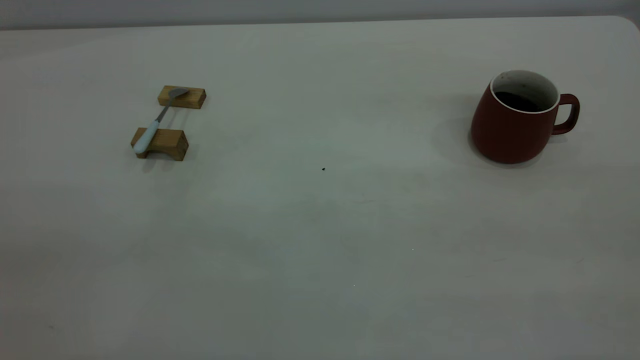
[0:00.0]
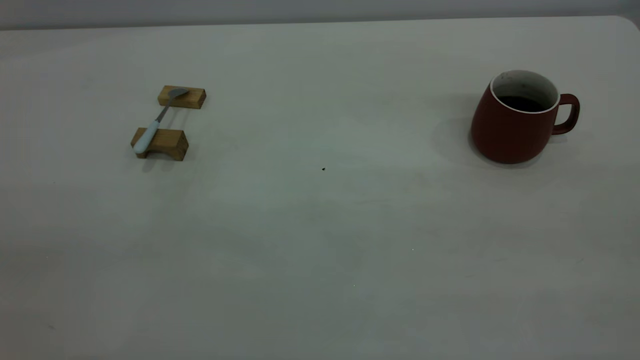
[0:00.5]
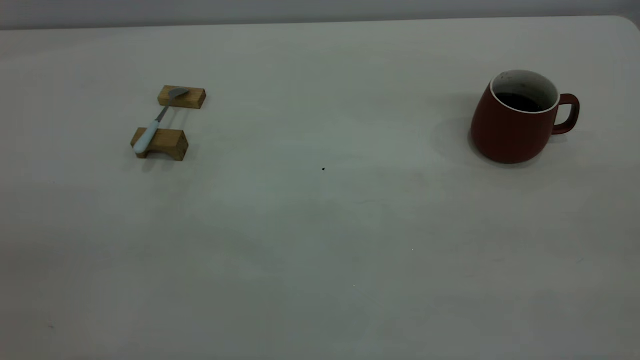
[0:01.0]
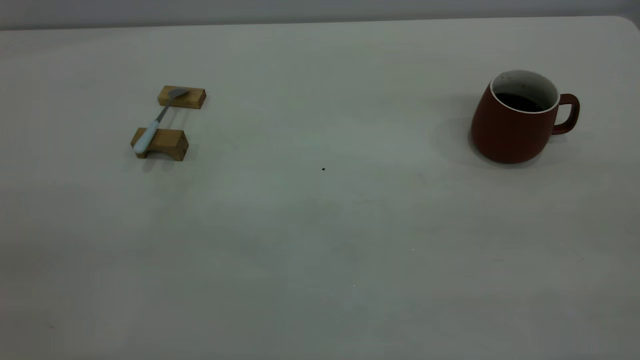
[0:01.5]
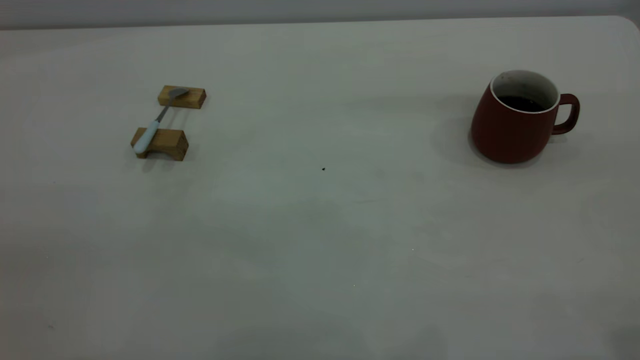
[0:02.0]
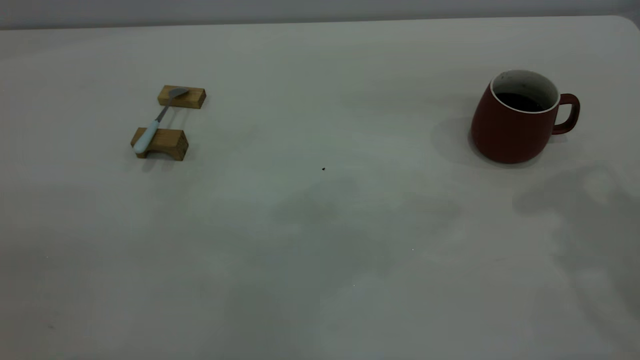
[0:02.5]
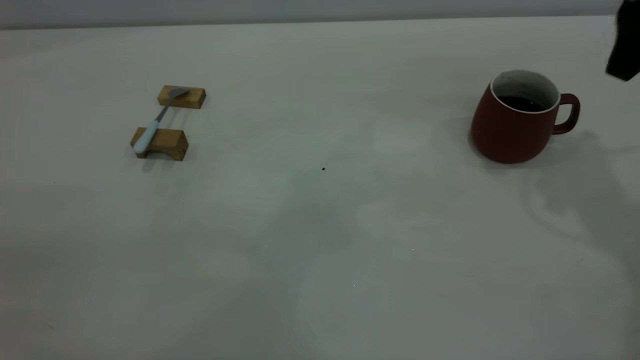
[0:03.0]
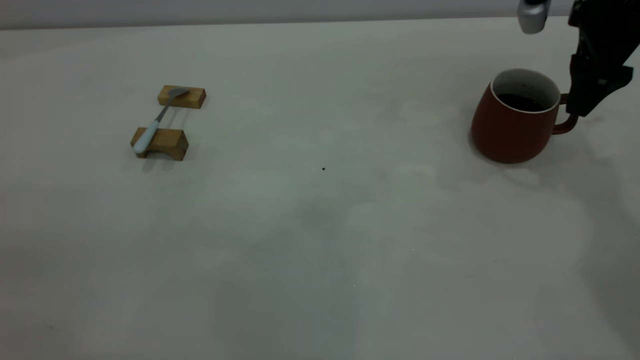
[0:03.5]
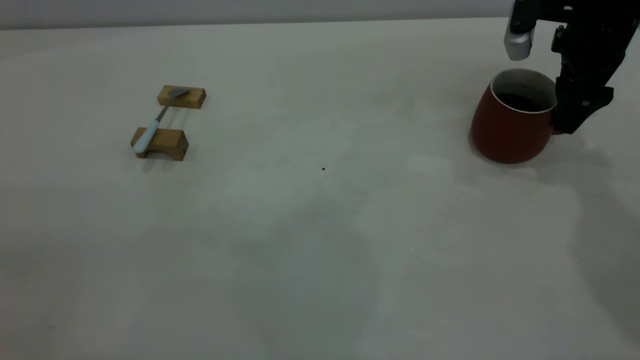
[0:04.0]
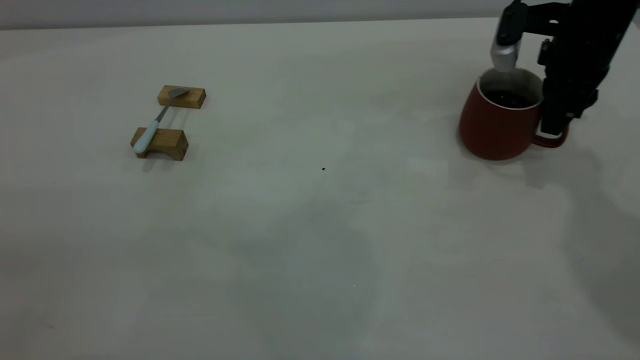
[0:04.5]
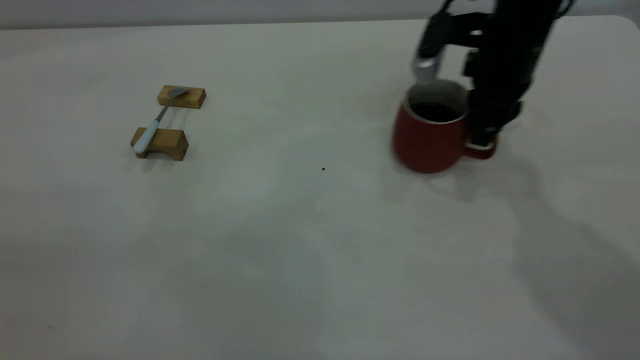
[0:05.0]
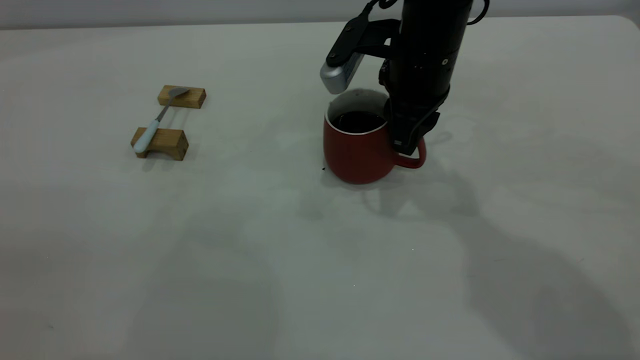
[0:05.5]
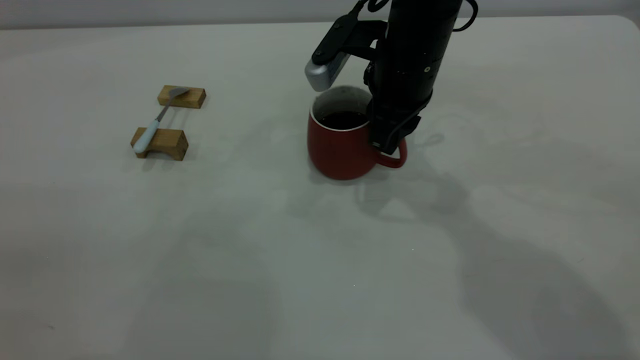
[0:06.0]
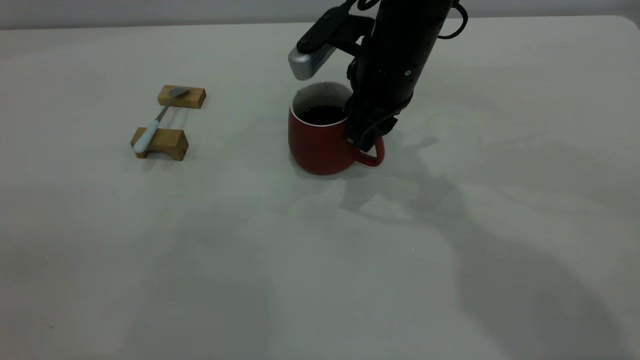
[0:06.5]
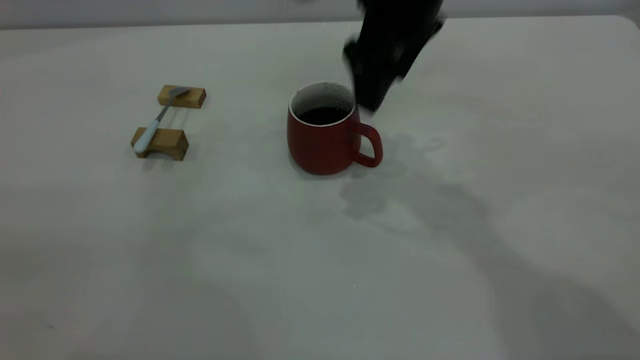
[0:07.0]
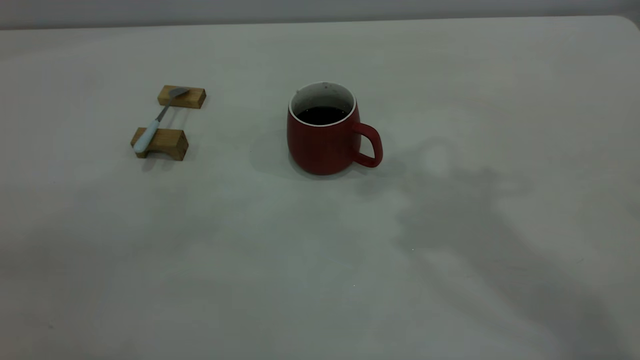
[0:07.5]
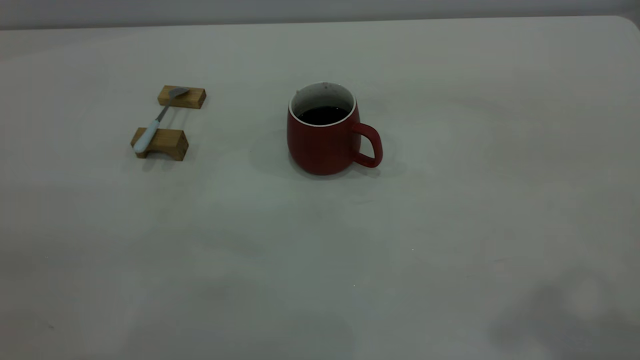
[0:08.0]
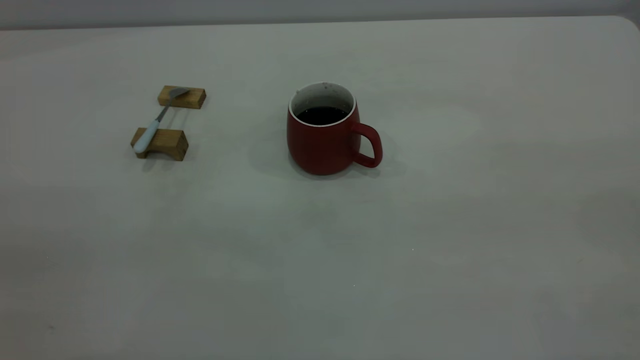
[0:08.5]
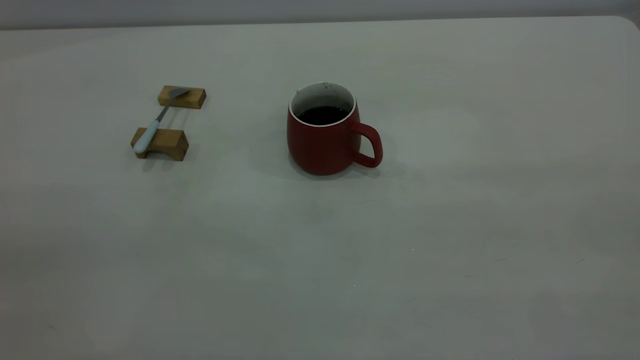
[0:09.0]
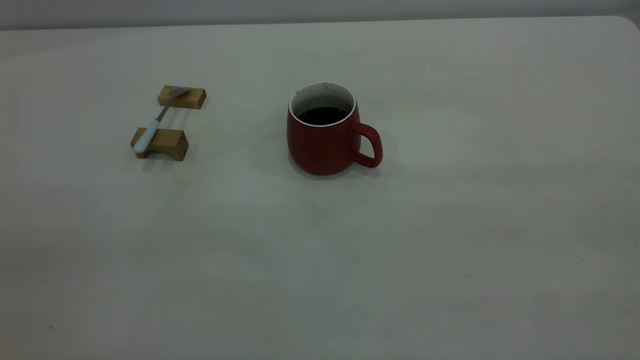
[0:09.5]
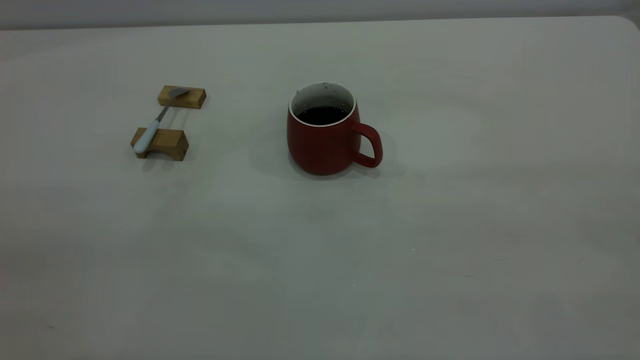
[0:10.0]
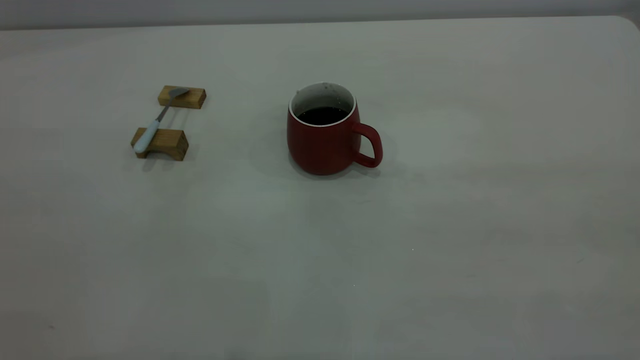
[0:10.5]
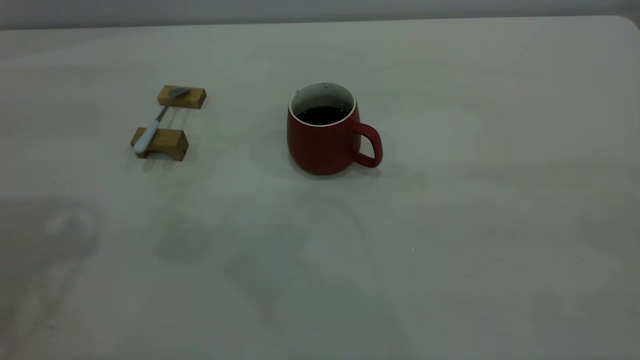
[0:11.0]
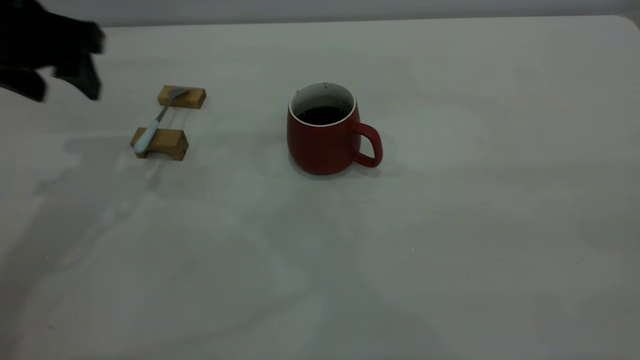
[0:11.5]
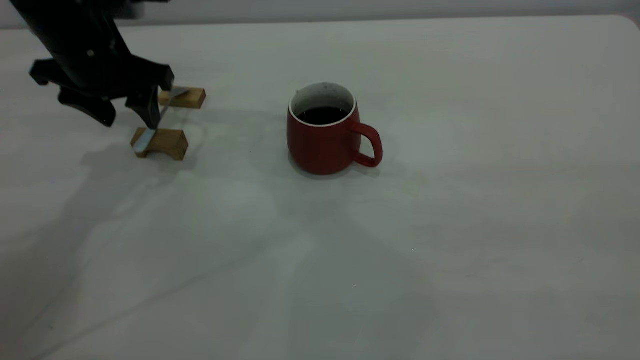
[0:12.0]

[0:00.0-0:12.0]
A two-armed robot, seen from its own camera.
Step, 0:00.0 to 0:07.0: Move the cup with coffee to the center of view.
0:02.0 to 0:04.0: The right gripper travels forward and downward by approximately 40 cm.
0:04.0 to 0:06.0: The right gripper goes some 20 cm to the left, and closes up.
0:06.0 to 0:08.0: The right gripper is displaced upward, backward and to the right by some 40 cm, and opens.
0:10.0 to 0:12.0: The left gripper shifts some 50 cm forward and downward, and opens its fingers.

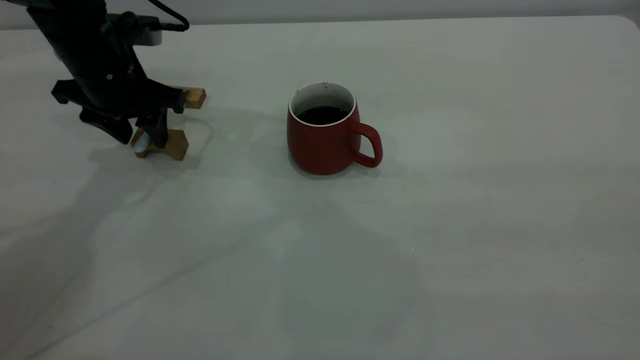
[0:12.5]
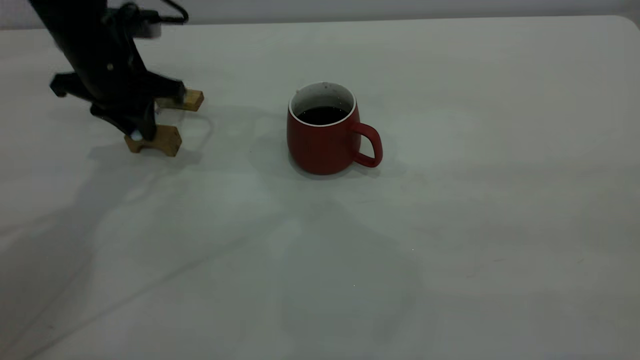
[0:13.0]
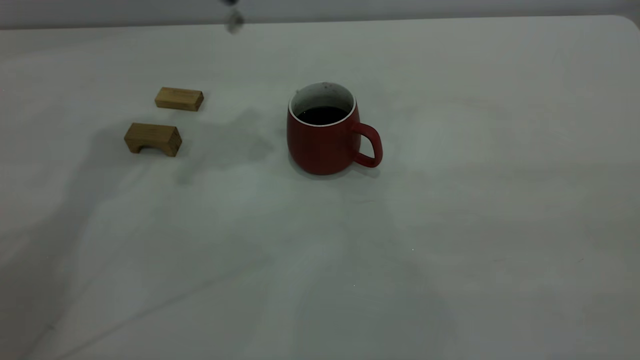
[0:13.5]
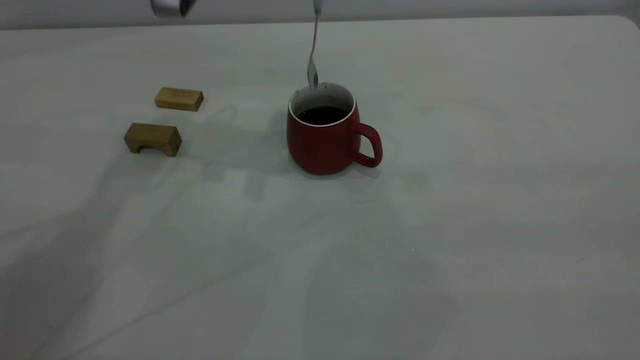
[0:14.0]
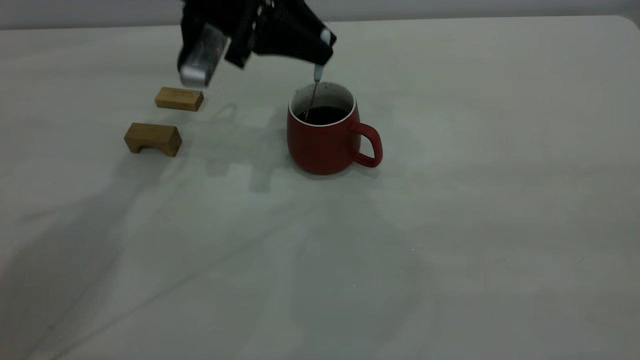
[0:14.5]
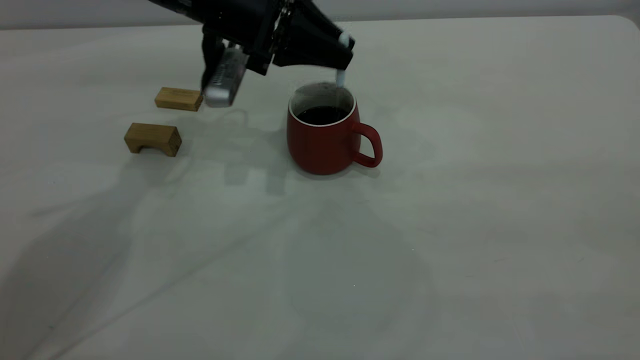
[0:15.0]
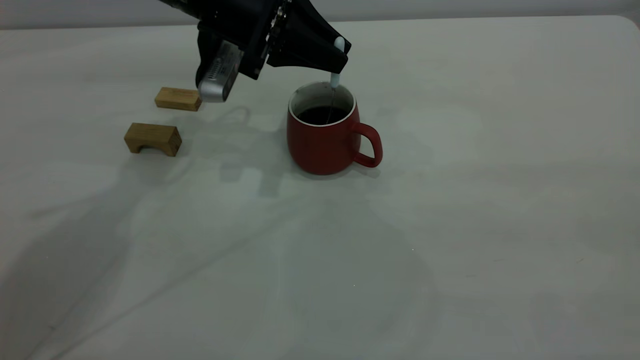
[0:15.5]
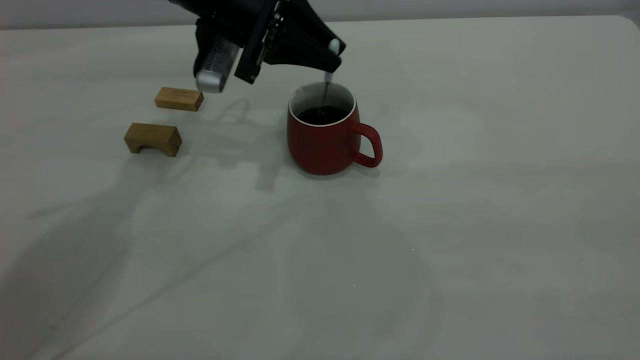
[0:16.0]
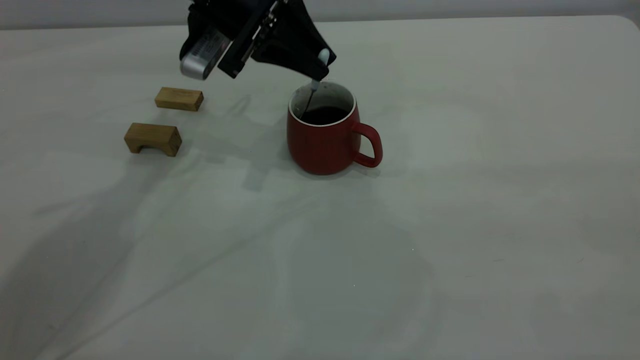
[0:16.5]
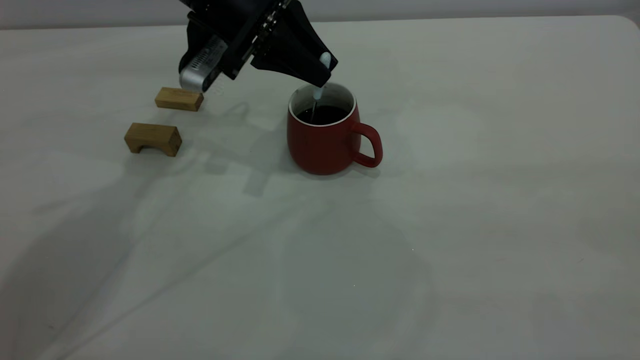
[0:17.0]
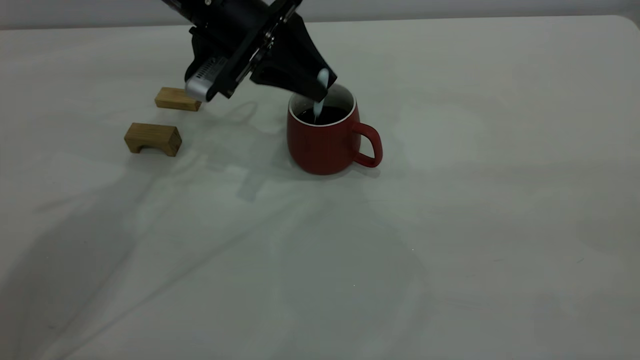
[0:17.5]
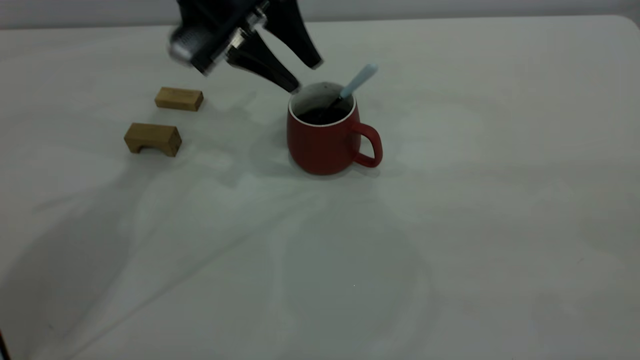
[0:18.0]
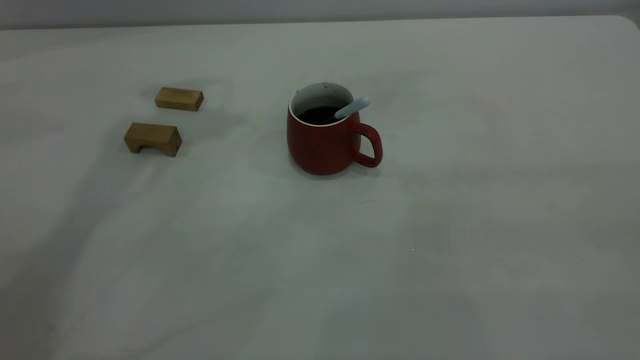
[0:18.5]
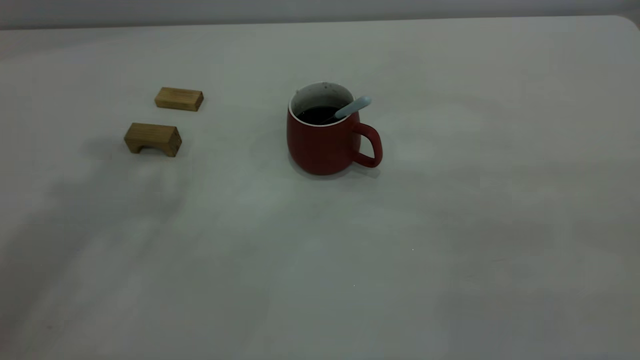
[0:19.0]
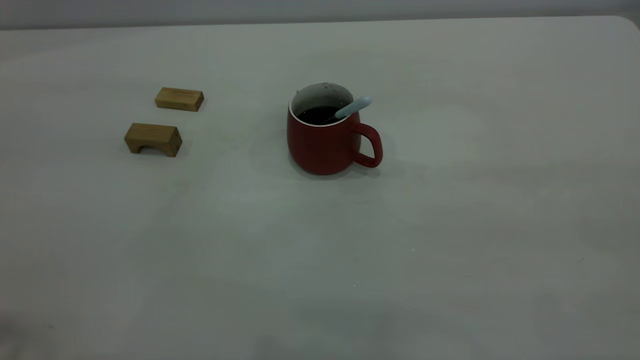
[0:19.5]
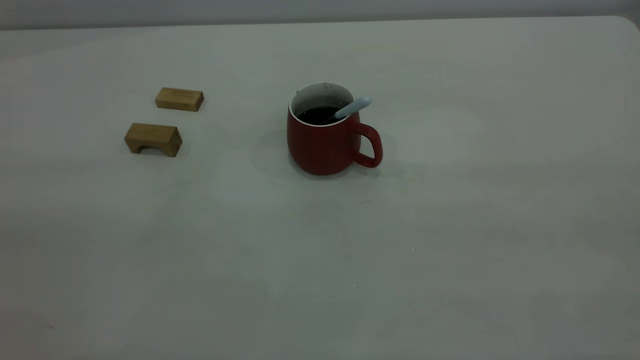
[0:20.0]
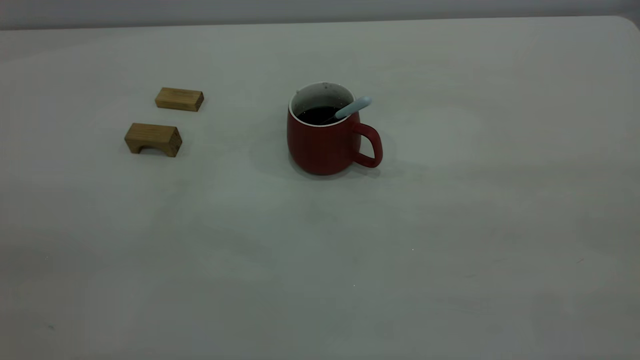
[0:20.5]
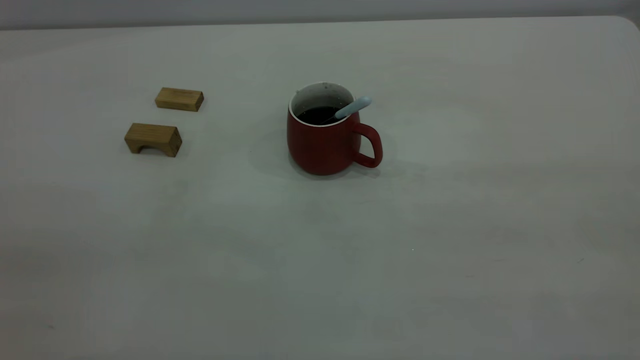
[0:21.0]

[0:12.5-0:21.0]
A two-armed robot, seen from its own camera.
Step, 0:13.5 to 0:18.0: Stir the coffee in the cup.
0:12.5 to 0:14.5: The left gripper is displaced to the right by approximately 10 cm, reaches approximately 15 cm upward, then returns, and closes up.
0:14.5 to 0:16.5: The grippers make only small movements.
0:16.5 to 0:19.0: The left gripper is displaced upward and backward by about 35 cm, and opens up.
